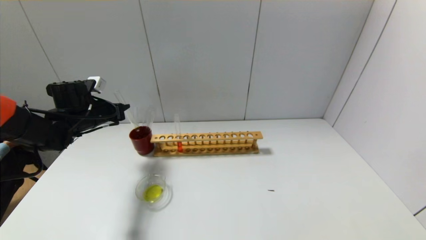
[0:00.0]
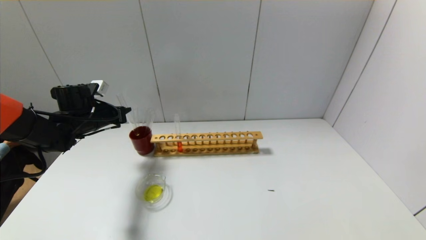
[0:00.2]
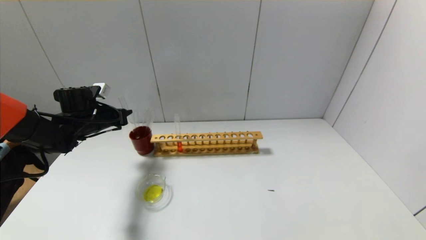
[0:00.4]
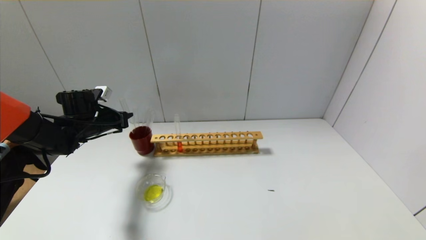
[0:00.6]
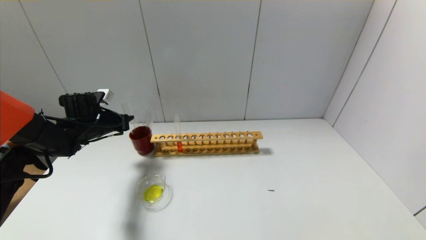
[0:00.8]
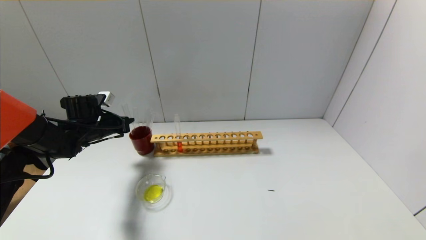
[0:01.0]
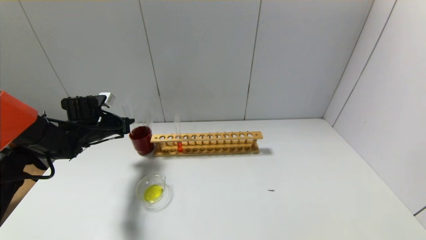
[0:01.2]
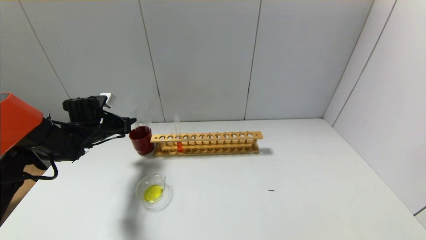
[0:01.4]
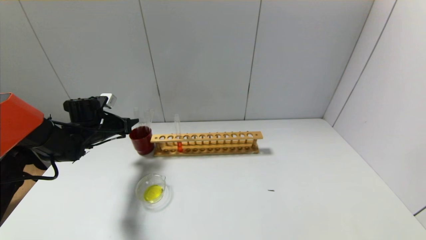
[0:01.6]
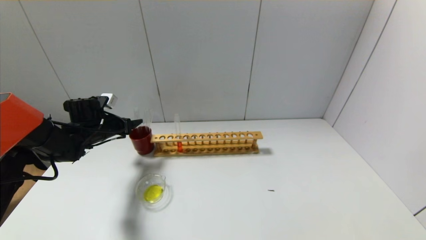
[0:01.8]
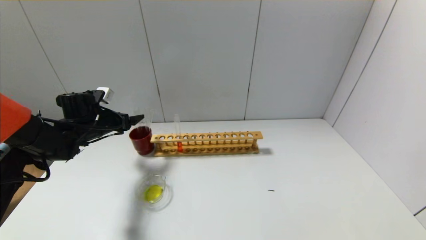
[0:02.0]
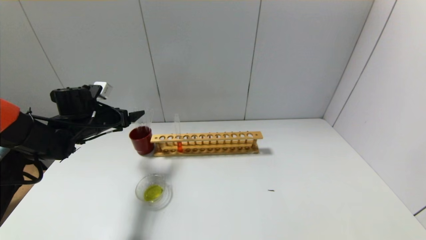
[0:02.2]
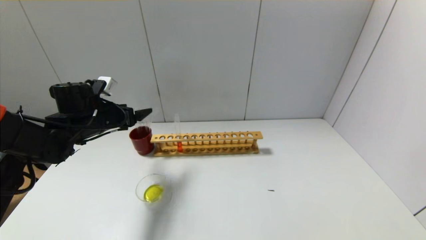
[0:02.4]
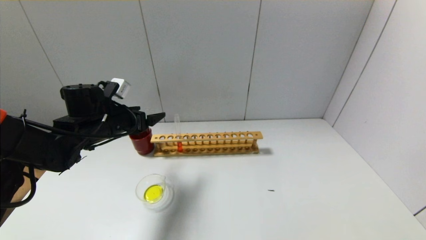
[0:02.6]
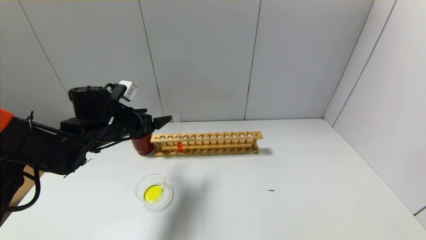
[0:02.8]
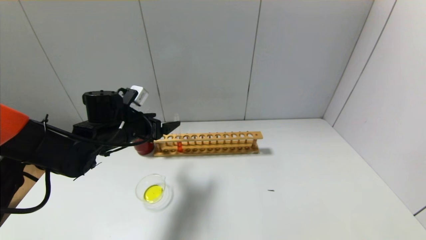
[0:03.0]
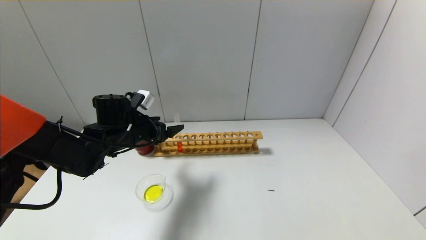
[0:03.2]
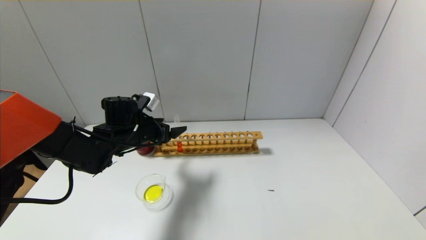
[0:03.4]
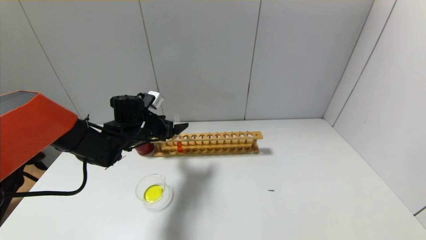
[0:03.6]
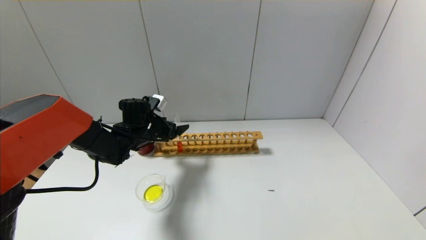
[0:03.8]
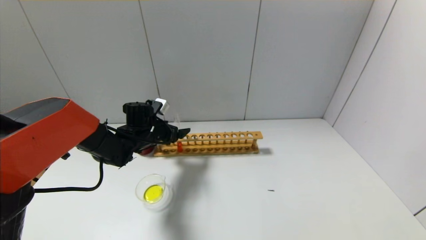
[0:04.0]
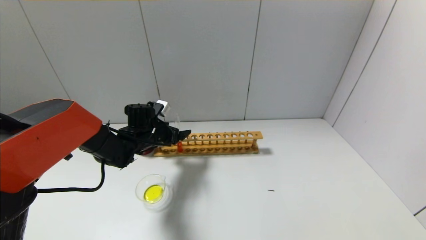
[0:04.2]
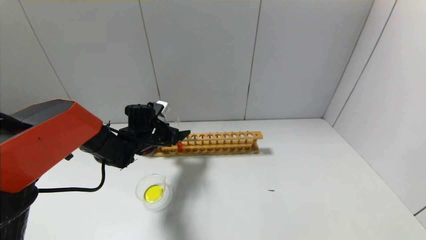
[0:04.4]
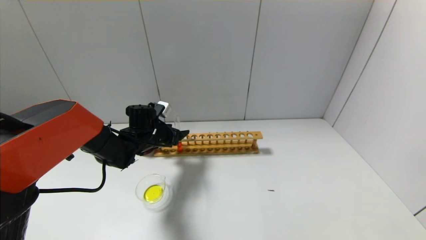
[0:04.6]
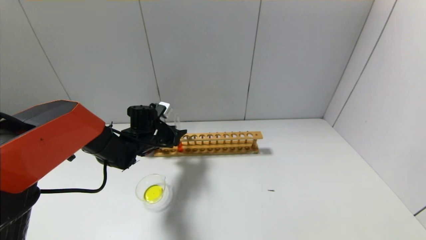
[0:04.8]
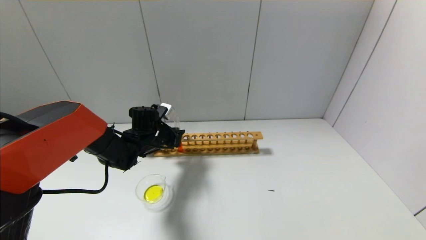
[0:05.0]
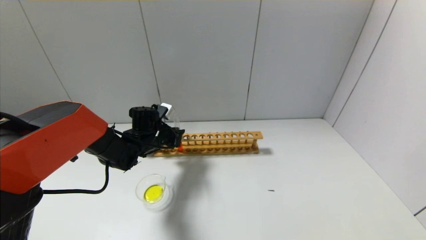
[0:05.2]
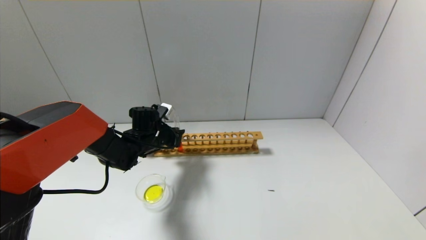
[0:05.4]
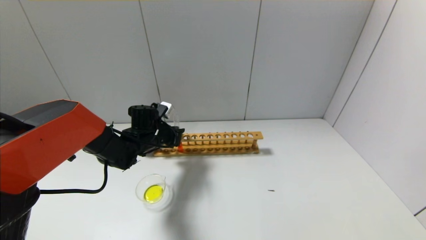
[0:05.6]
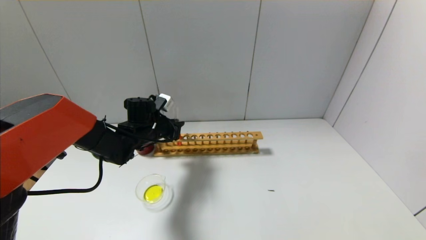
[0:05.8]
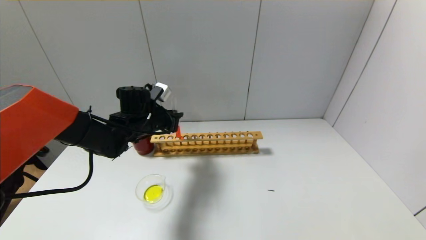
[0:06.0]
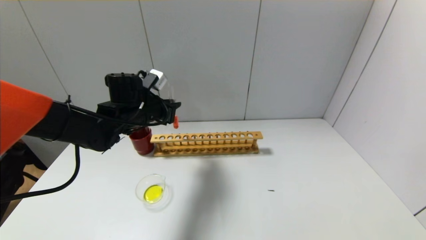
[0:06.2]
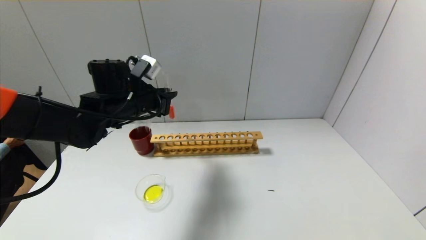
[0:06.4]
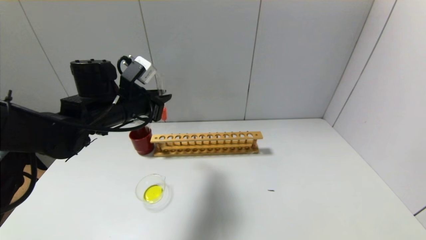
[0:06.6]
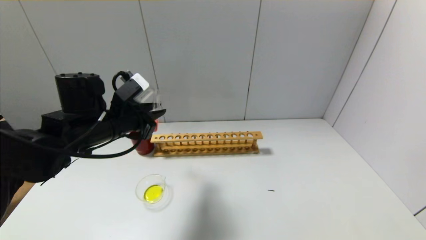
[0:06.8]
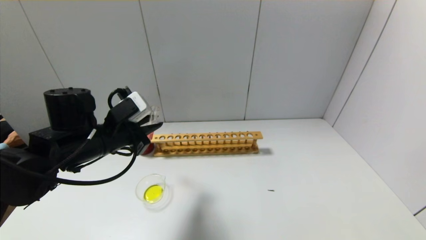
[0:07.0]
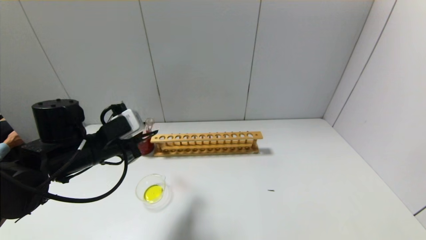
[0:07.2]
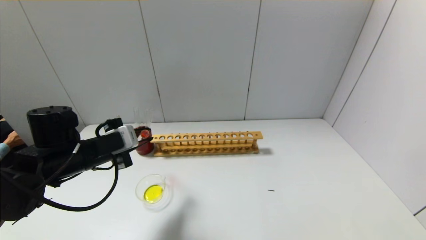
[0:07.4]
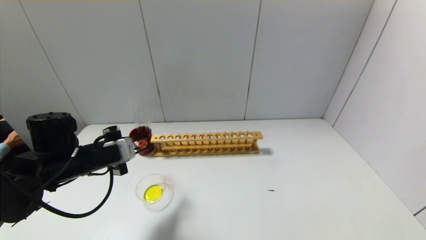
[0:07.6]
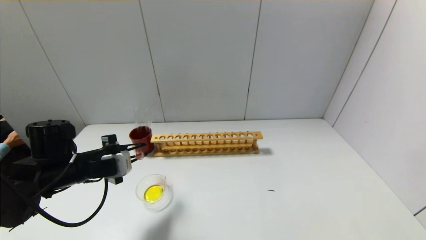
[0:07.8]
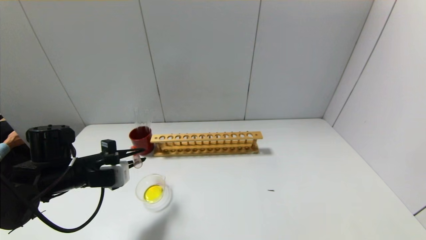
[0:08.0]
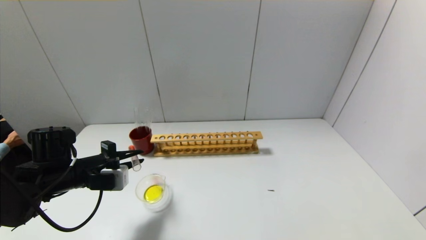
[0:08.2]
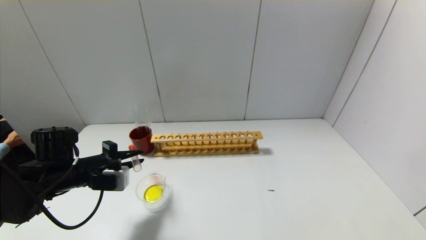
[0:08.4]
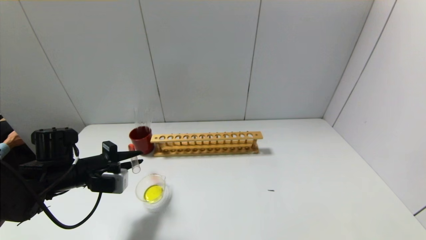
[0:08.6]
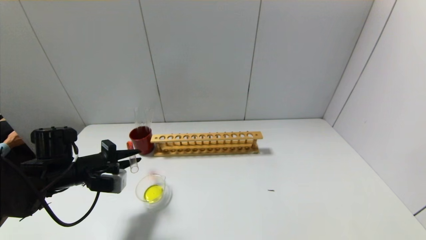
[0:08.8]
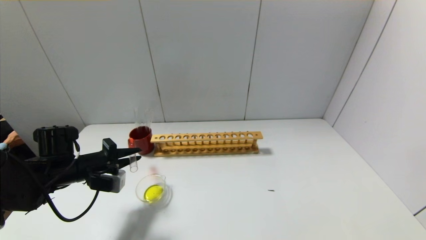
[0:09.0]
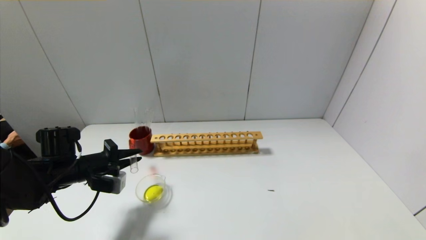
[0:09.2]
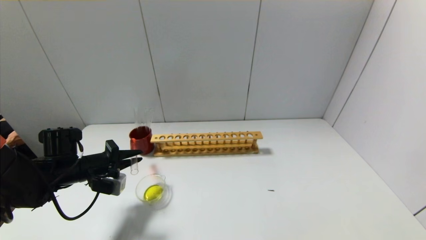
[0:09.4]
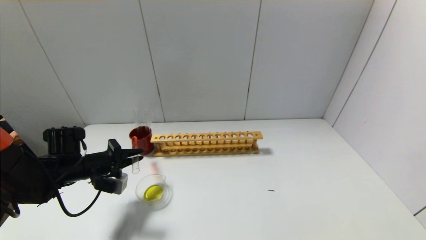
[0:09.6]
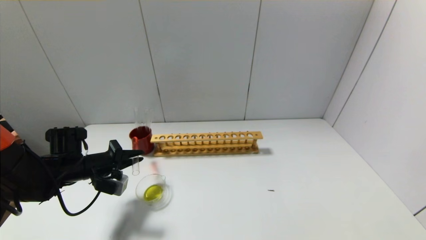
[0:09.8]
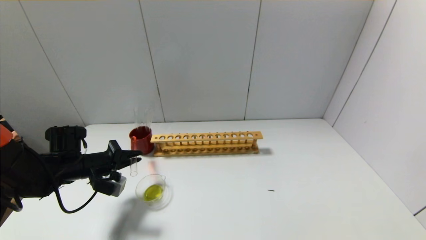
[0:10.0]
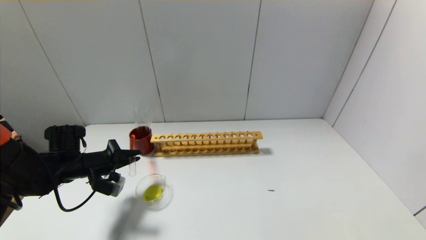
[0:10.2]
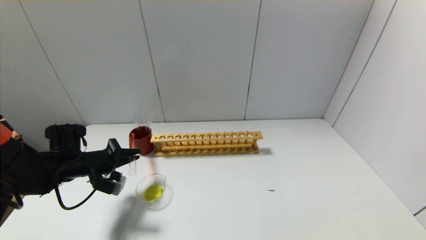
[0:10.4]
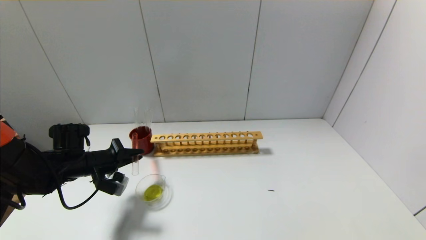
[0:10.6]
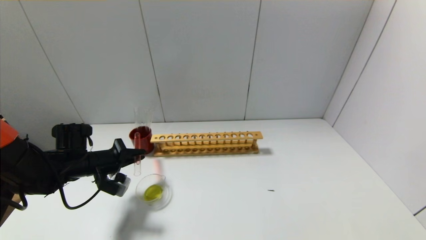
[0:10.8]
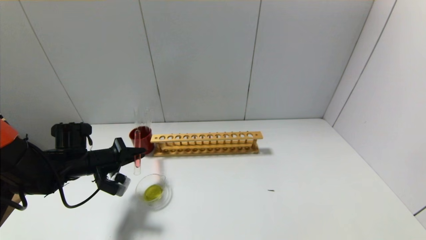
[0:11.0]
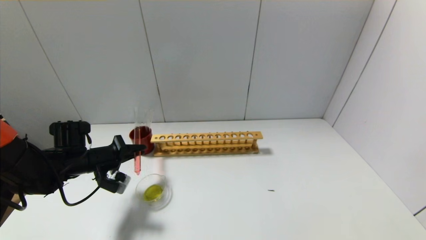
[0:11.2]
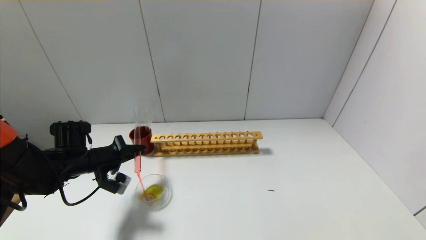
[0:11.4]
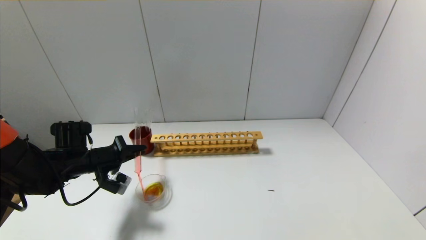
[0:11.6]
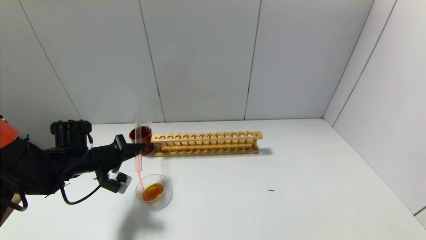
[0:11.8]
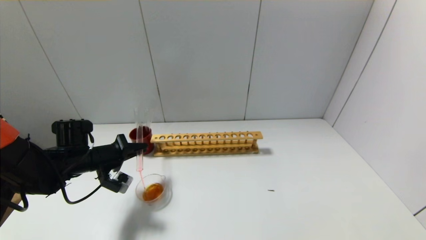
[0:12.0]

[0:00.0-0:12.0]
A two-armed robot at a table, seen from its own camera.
Step, 0:01.6 to 0:05.0: Grasp the red reagent with the left gripper.
0:00.0 to 0:01.6: The left gripper shifts roughly 5 cm downward, and opens.
0:01.6 to 0:03.0: The left gripper is displaced to the right and backward by approximately 15 cm, and opens its fingers.
0:03.0 to 0:04.4: The left gripper shifts some 10 cm forward and downward.
0:04.4 to 0:06.0: The left gripper moves upward, about 5 cm, and closes up.
0:06.0 to 0:07.6: The left gripper travels backward and to the left by about 15 cm.
0:07.6 to 0:09.0: The left gripper ends up approximately 5 cm from where it was.
0:09.0 to 0:10.4: There are only small adjustments of the grippers.
0:10.4 to 0:12.0: The grippers stay close to where they were, moving slightly.

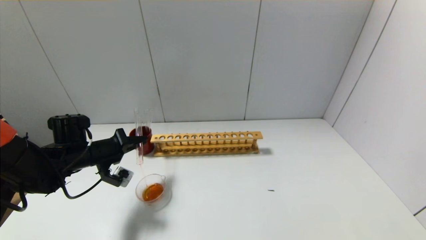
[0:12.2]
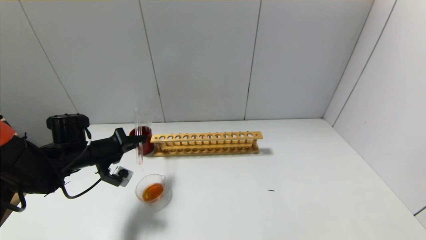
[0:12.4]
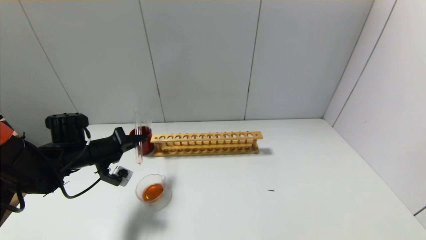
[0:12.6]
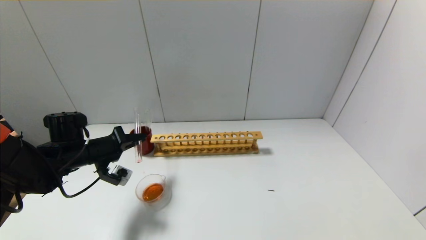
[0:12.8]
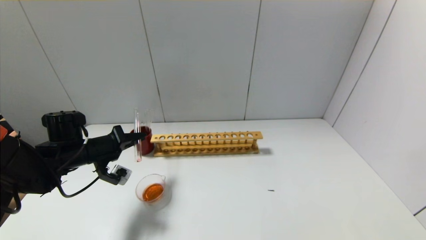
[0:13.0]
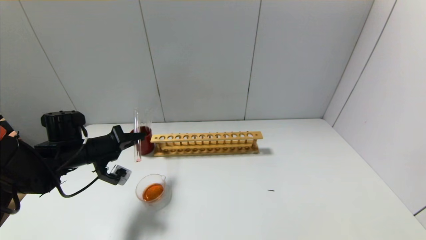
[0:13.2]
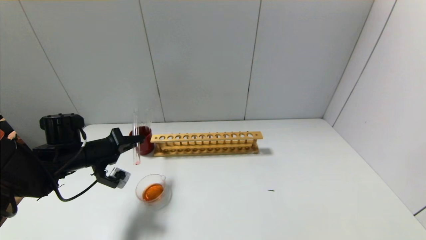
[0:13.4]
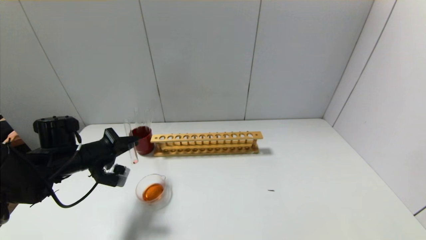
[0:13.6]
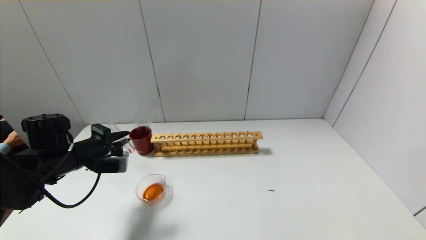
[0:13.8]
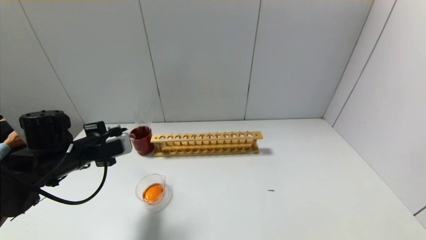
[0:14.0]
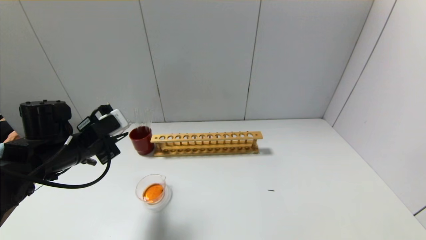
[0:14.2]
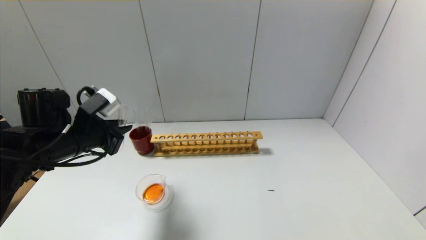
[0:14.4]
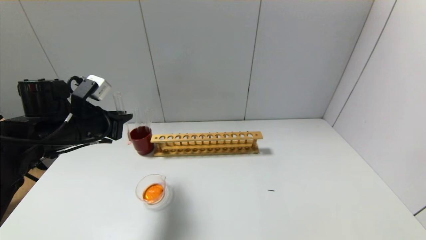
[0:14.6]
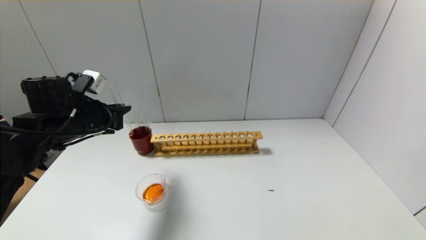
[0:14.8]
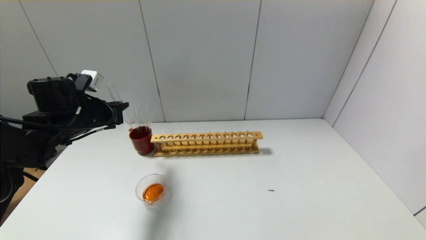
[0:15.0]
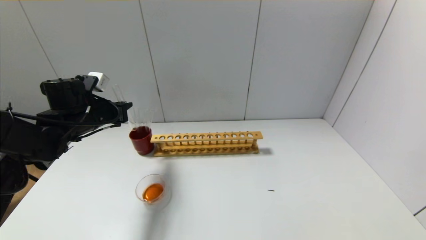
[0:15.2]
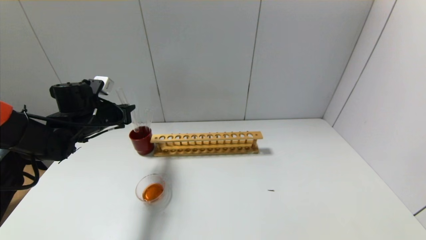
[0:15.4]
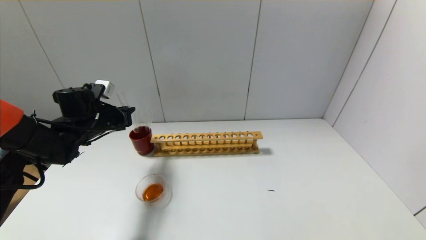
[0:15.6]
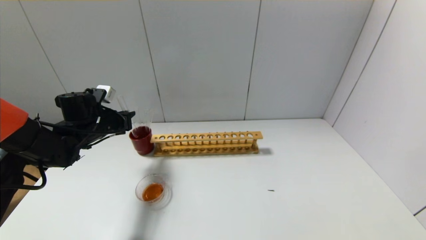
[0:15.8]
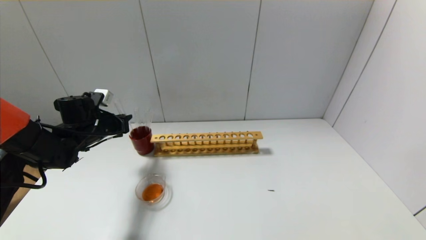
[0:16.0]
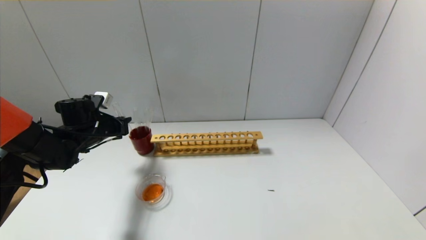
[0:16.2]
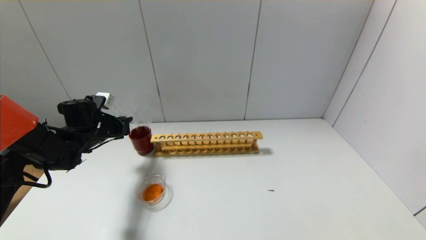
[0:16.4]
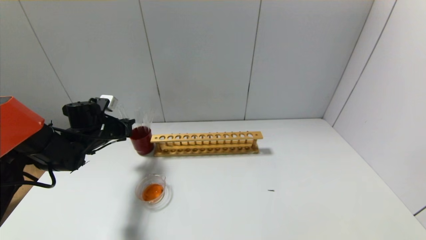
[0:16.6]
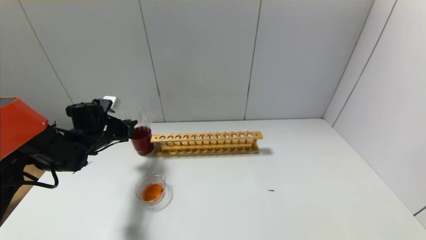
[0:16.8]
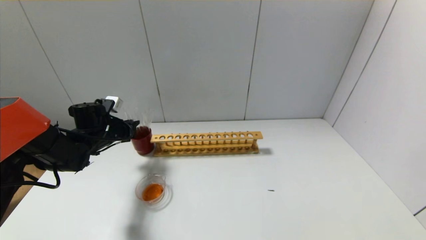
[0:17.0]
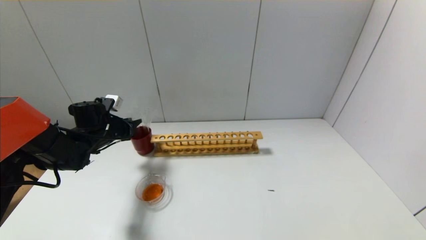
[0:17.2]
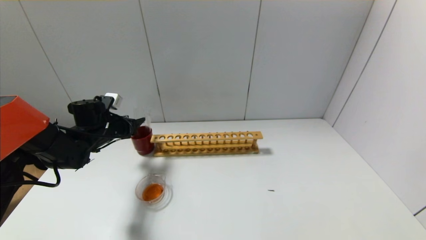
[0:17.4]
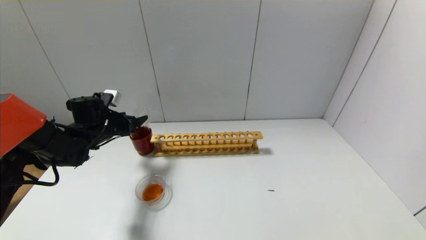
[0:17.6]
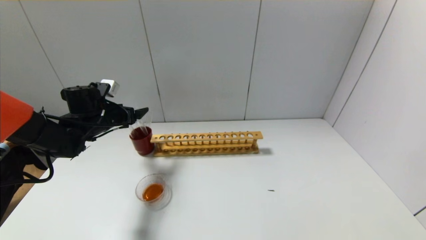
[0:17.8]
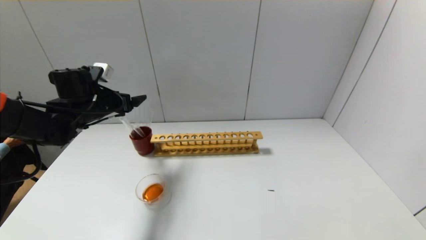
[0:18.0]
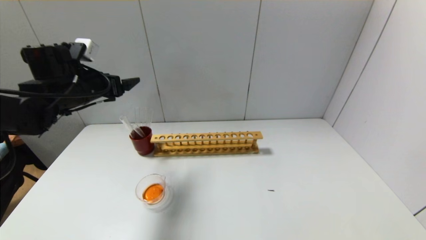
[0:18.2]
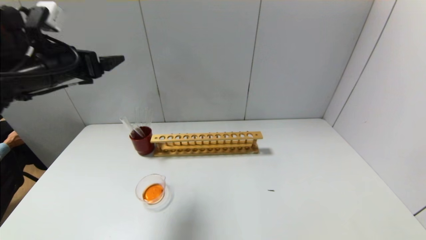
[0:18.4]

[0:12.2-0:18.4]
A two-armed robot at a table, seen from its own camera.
Step, 0:13.8 to 0:17.2: Place the test tube into the brown cup with the left gripper.
0:13.8 to 0:15.4: The left gripper moves forward, approximately 10 cm.
0:15.4 to 0:16.8: The left gripper heads downward, covering some 5 cm.
0:16.8 to 0:18.4: The left gripper travels upward and backward by roughly 25 cm, and opens.
